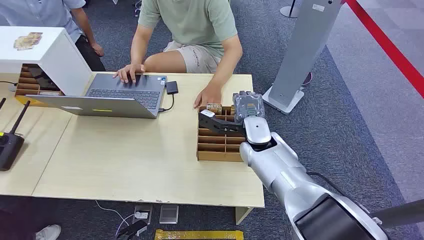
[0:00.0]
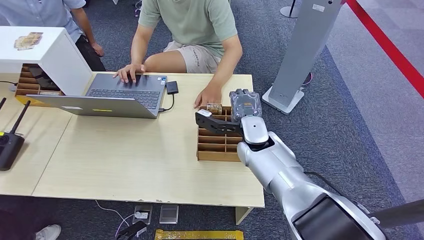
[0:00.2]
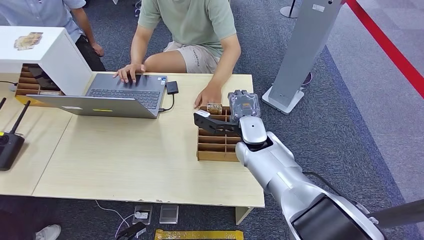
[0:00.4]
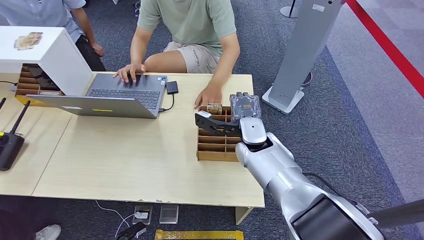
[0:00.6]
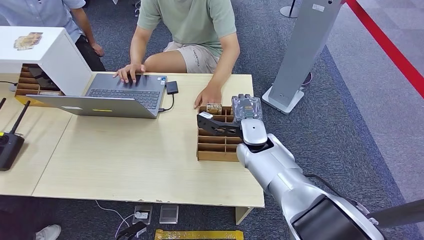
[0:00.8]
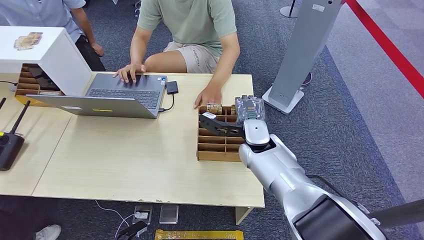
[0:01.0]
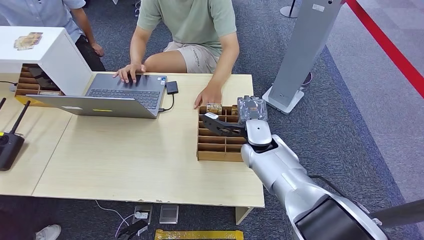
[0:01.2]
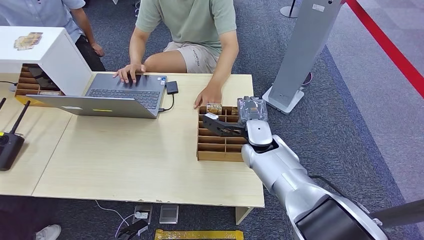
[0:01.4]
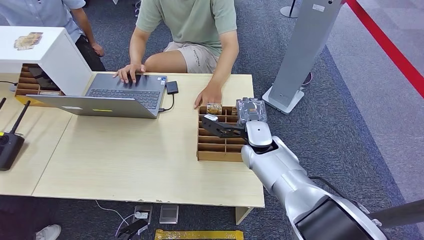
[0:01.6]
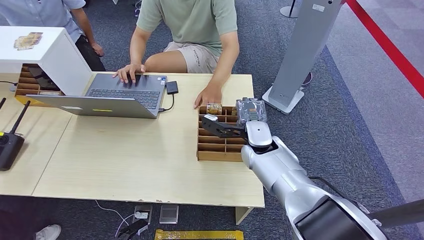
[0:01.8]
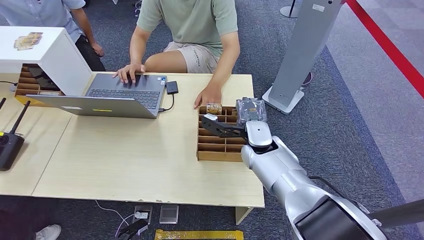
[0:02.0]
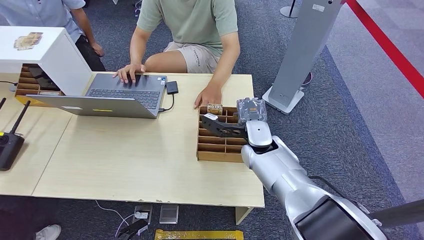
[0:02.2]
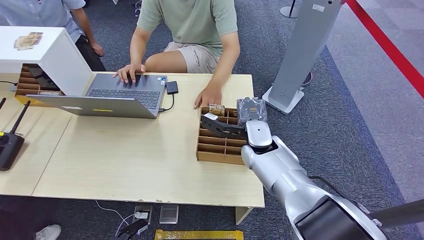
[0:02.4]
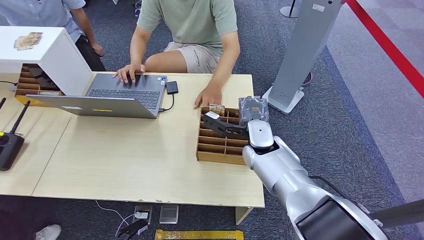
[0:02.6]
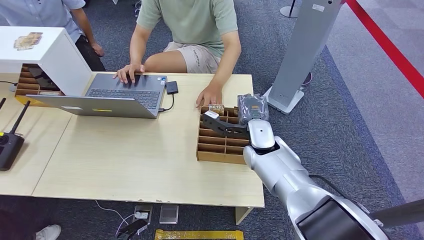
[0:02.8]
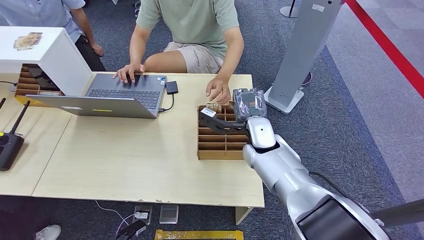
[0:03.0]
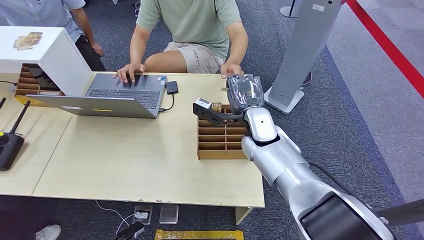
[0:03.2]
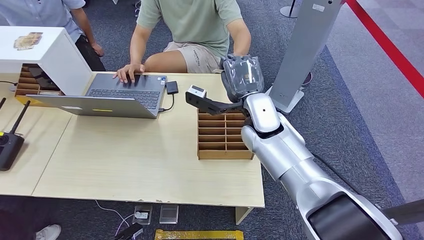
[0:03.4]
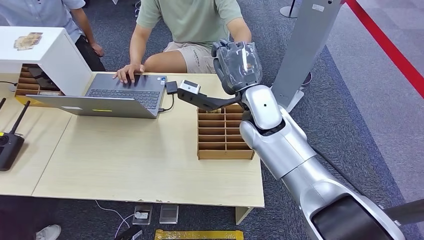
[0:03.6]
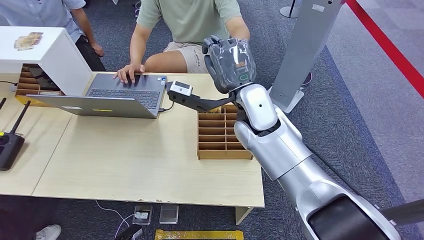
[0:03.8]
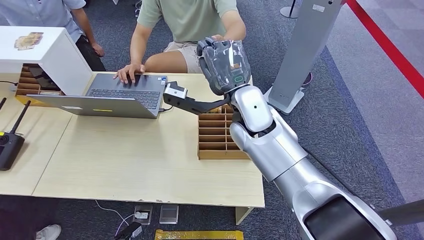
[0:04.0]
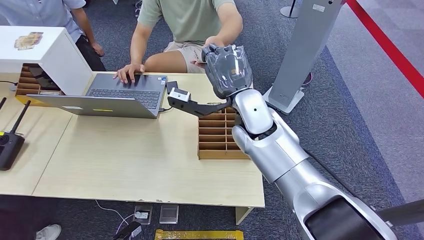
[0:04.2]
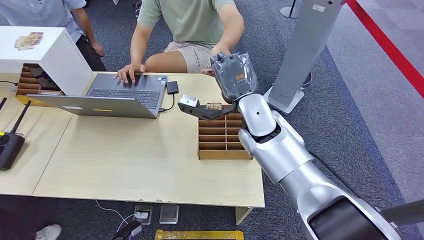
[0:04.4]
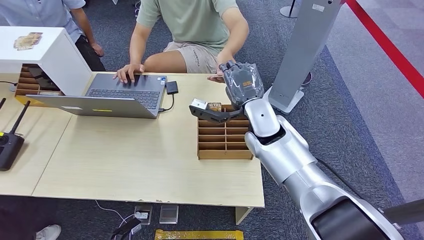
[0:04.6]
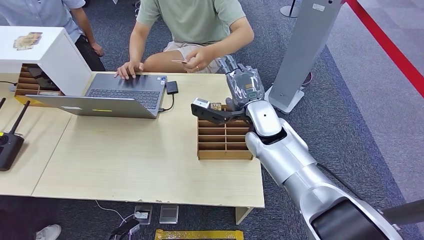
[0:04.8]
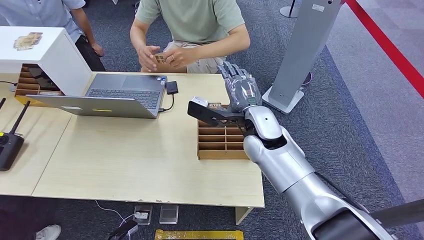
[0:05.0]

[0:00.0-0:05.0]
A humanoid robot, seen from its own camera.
Step, 0:00.0 to 0:03.2: Pick up the key card from the card box.
Step, 0:04.2 to 0:05.0: Hand the key card to the target.
0:01.6 to 0:03.4: The right hand moves upward, about 10 cm.
0:03.4 to 0:05.0: There are only small adjustments of the hands.

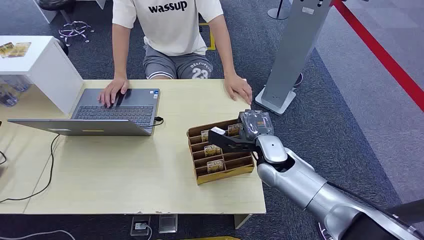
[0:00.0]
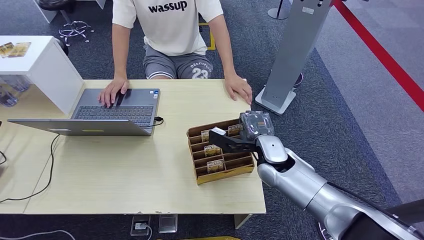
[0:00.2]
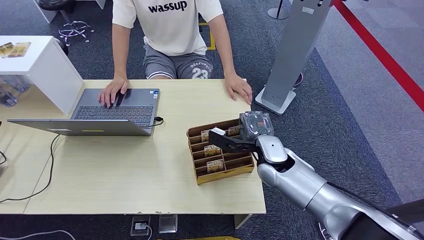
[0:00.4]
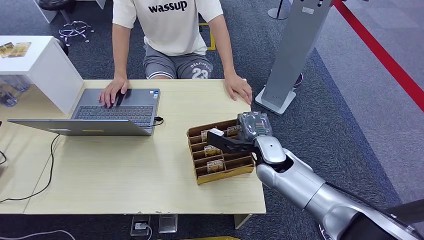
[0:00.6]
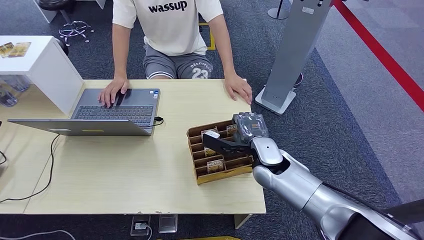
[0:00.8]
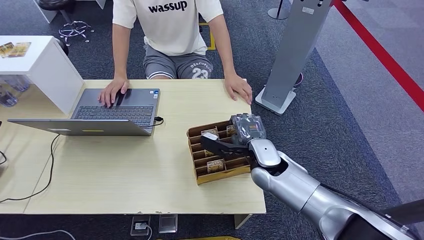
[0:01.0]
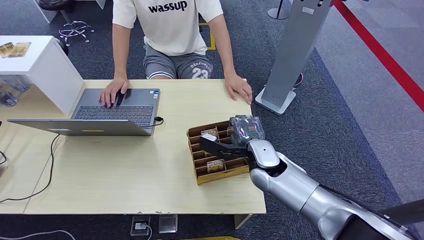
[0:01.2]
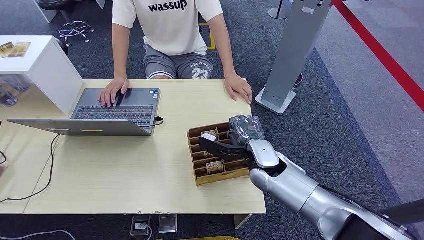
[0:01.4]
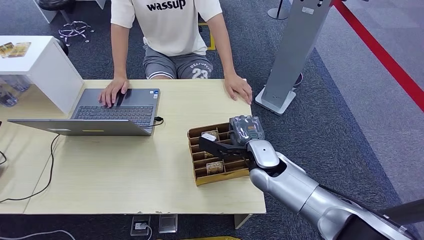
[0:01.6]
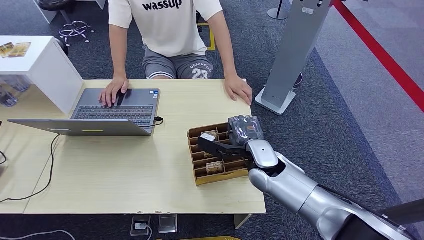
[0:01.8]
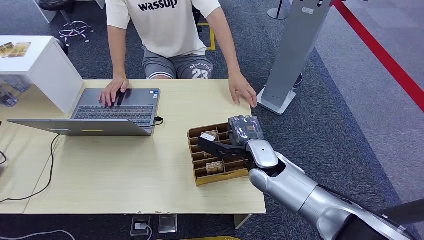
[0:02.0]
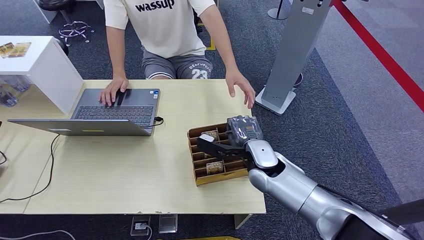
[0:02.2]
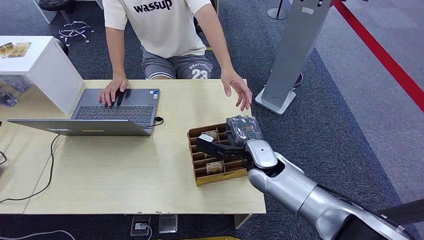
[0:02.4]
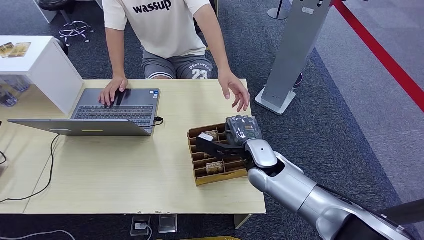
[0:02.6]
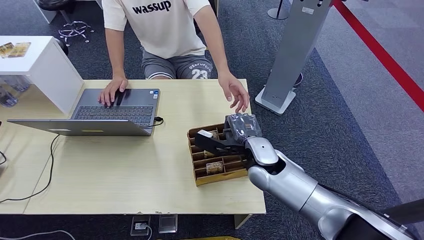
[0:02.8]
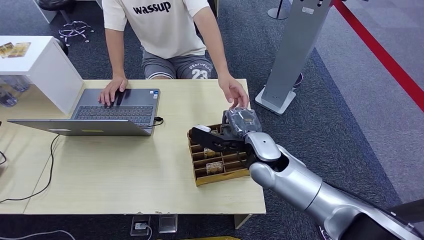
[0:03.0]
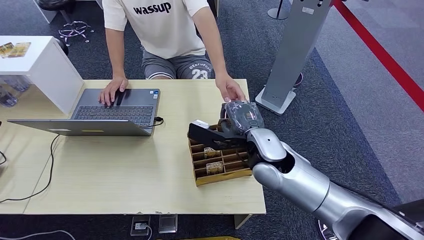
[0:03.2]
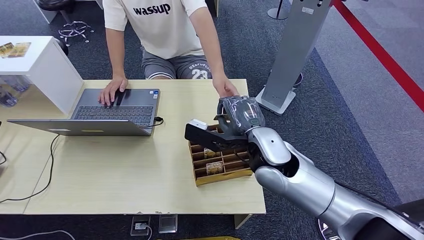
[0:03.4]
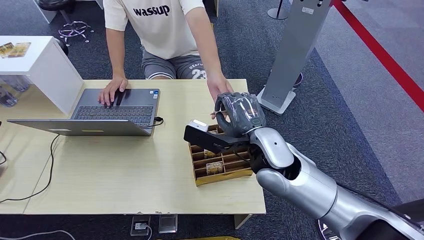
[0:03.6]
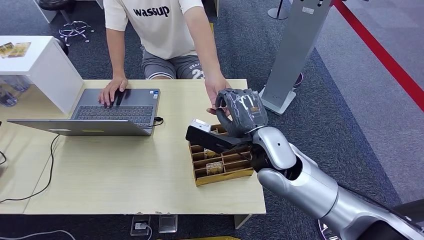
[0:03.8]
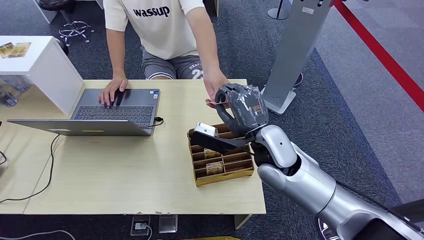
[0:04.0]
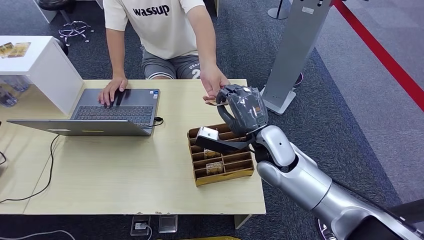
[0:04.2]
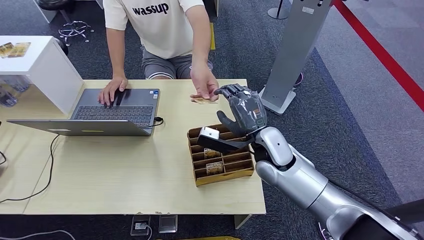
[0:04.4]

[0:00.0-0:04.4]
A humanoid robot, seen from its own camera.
Step, 0:00.0 to 0:02.8: Pick up the key card from the card box.
Step, 0:03.2 to 0:04.4: Hand the key card to the target.
0:01.4 to 0:03.0: The right hand moves about 5 cm.

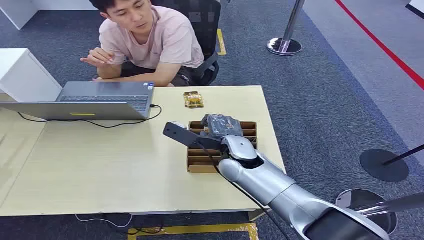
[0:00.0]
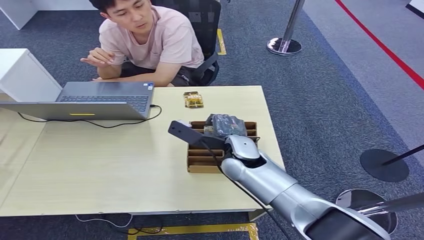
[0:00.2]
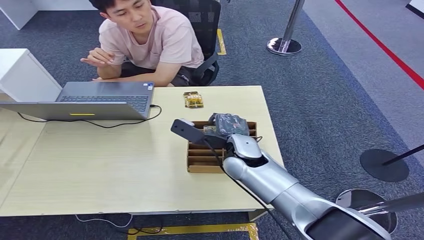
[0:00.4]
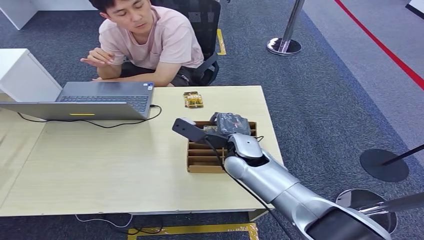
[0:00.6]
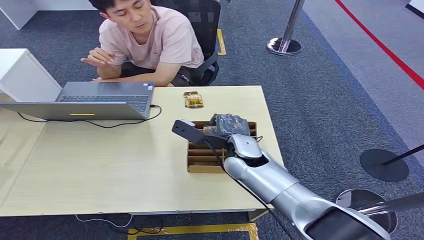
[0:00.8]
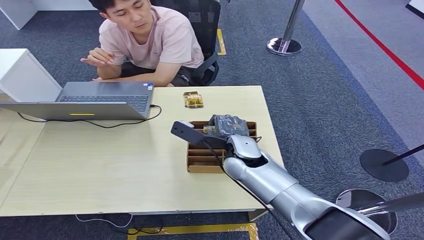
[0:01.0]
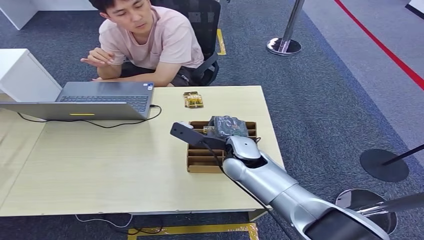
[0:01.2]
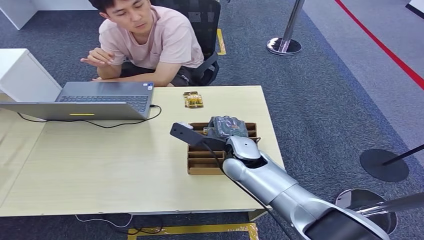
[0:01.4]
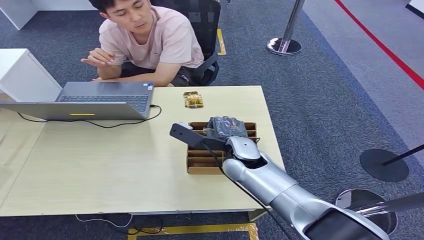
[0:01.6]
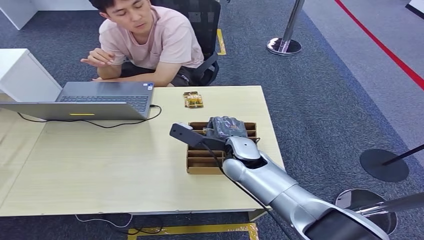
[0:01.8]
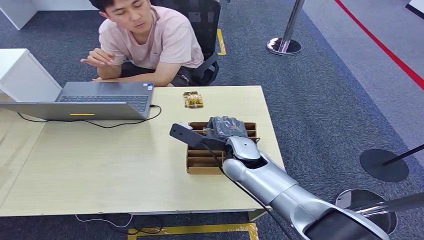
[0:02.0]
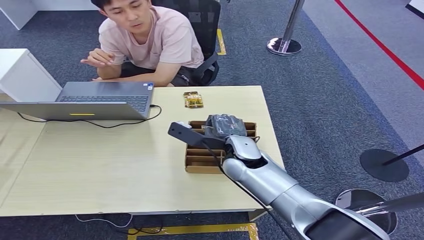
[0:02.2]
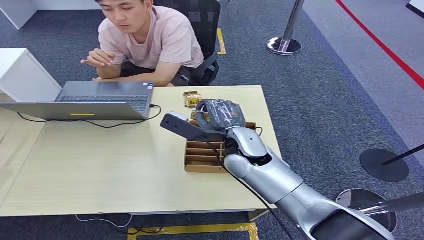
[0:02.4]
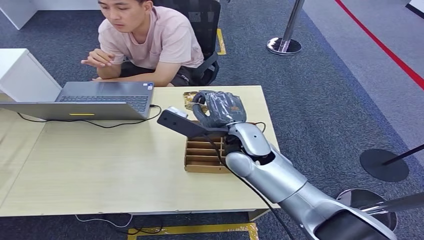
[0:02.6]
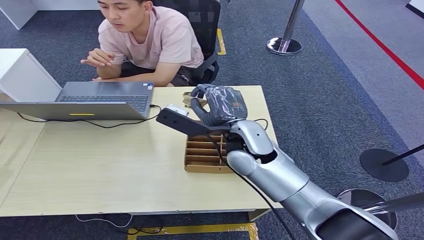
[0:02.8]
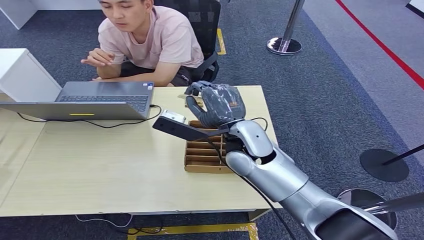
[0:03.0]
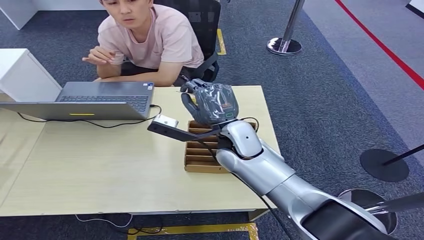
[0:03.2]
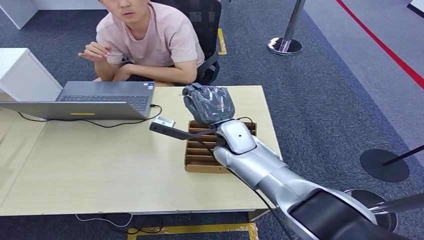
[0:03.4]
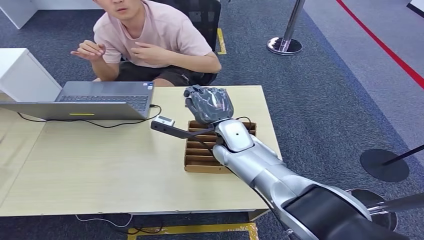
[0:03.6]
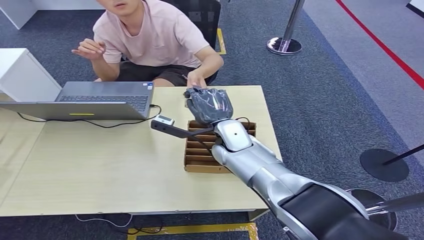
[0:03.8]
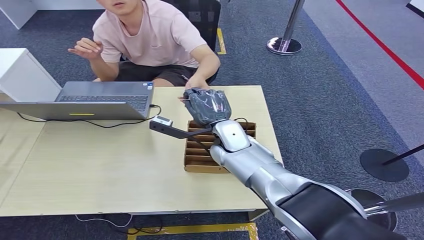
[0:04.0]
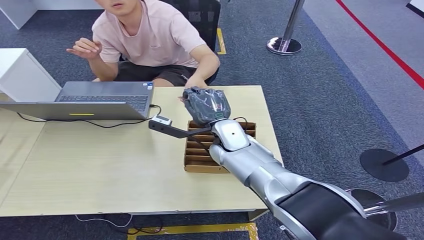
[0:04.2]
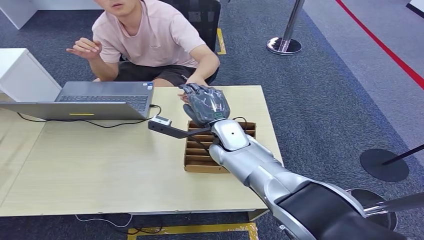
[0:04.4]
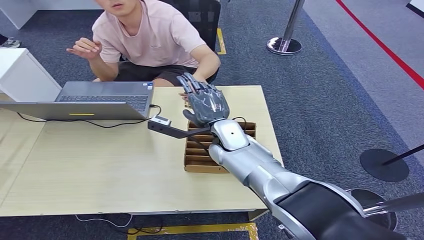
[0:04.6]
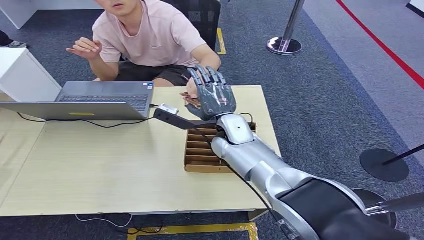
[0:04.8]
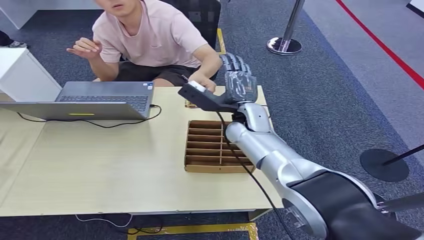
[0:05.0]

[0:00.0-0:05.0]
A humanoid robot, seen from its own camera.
Step, 0:00.0 to 0:02.4: Pick up the key card from the card box.
Step, 0:02.6 to 0:04.8: Hand the key card to the target.
0:03.4 to 0:05.0: The right hand moves some 5 cm.
